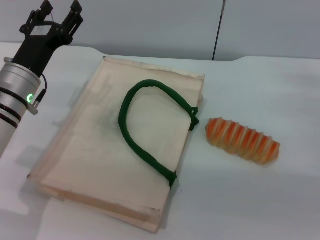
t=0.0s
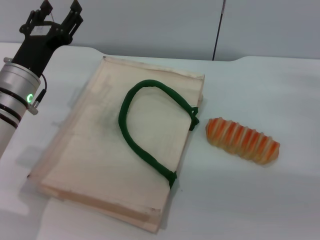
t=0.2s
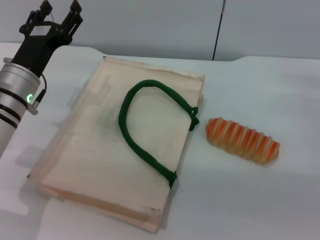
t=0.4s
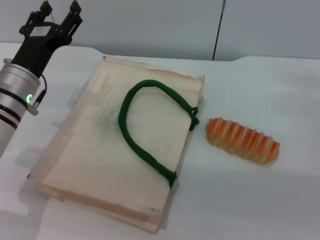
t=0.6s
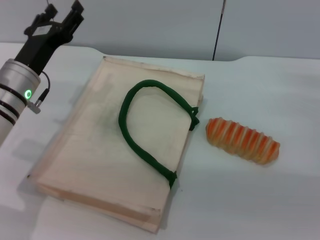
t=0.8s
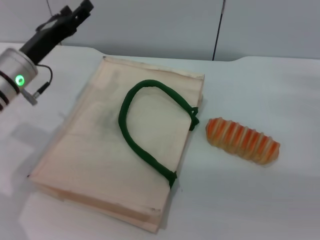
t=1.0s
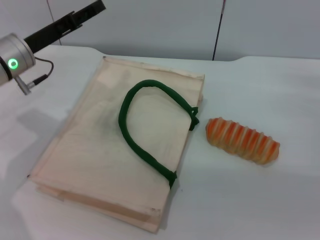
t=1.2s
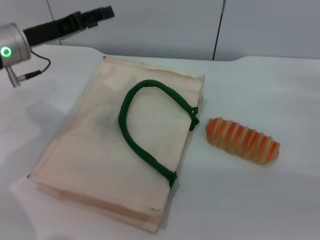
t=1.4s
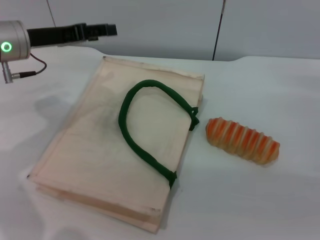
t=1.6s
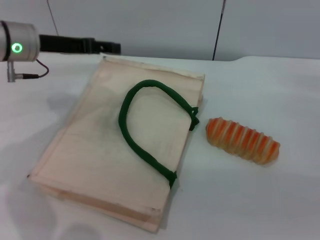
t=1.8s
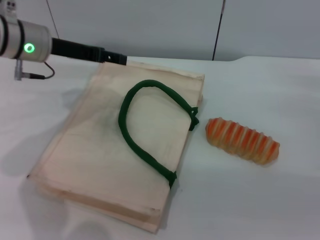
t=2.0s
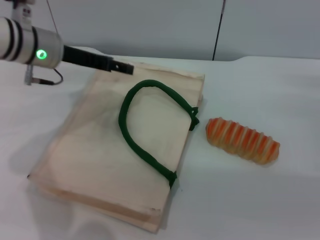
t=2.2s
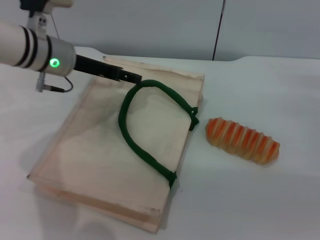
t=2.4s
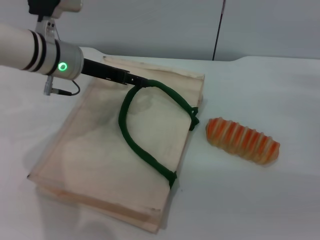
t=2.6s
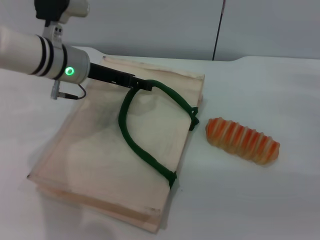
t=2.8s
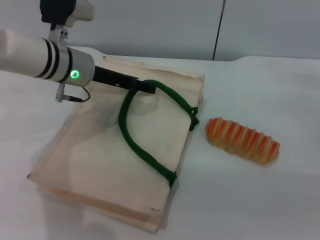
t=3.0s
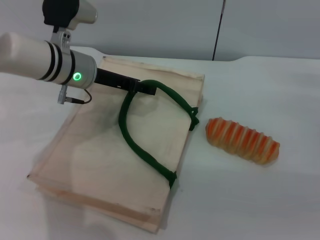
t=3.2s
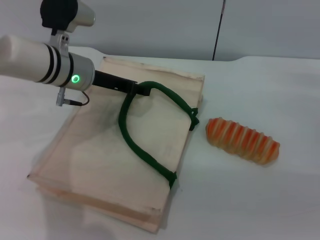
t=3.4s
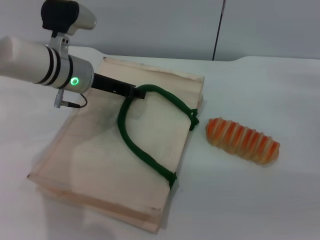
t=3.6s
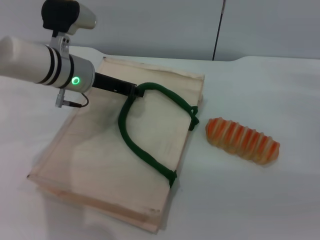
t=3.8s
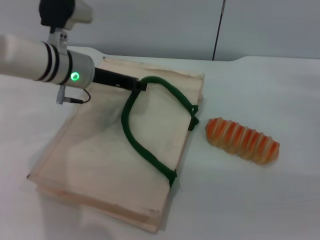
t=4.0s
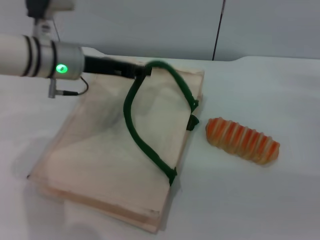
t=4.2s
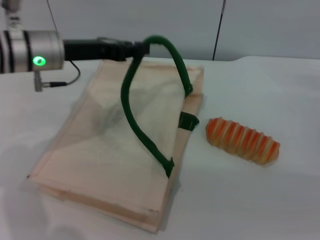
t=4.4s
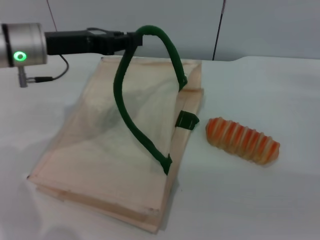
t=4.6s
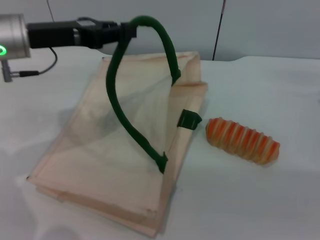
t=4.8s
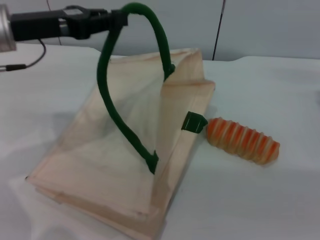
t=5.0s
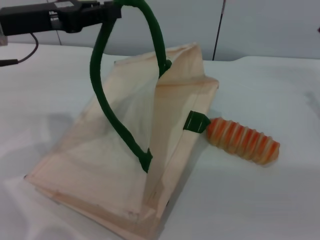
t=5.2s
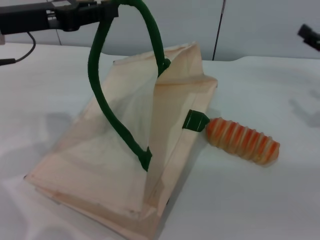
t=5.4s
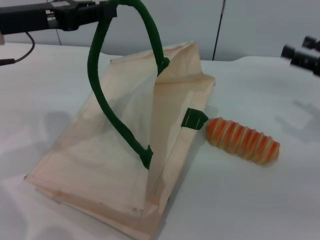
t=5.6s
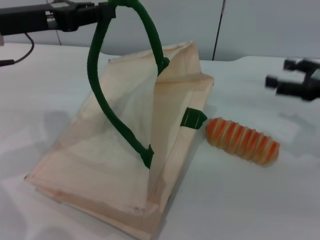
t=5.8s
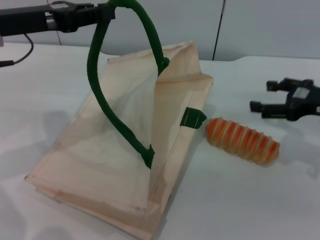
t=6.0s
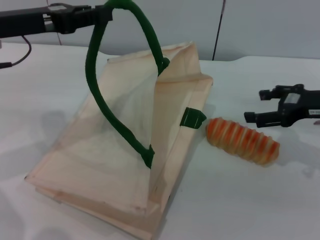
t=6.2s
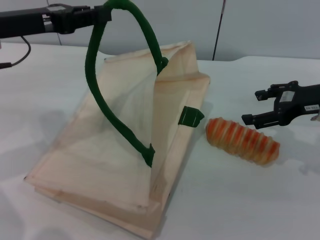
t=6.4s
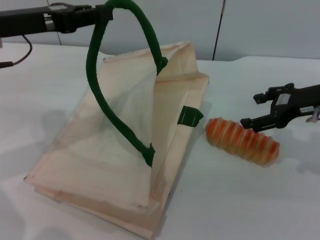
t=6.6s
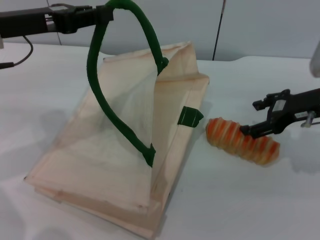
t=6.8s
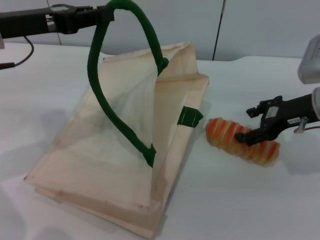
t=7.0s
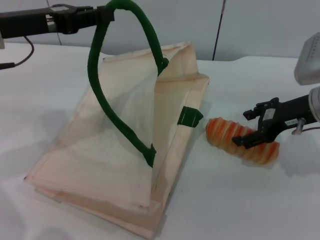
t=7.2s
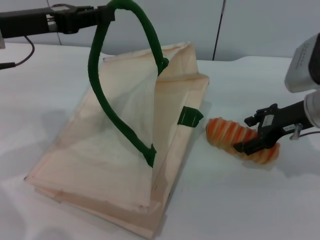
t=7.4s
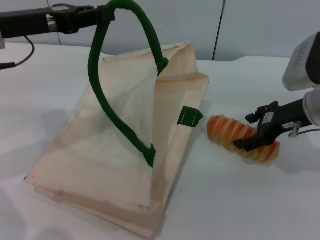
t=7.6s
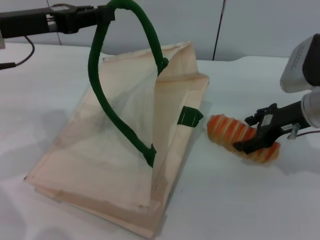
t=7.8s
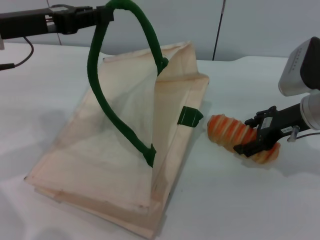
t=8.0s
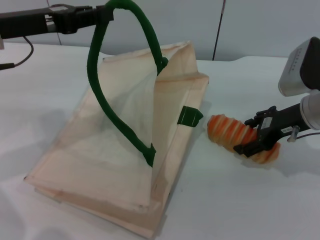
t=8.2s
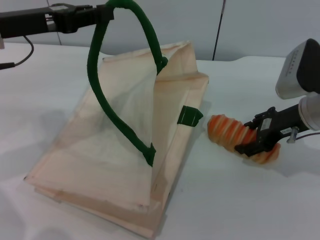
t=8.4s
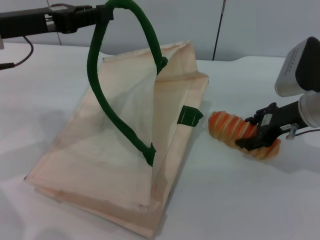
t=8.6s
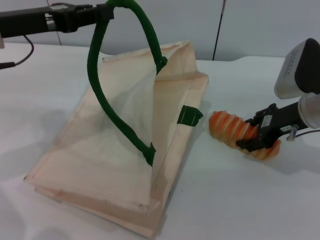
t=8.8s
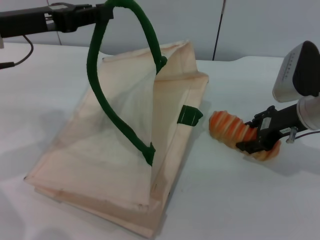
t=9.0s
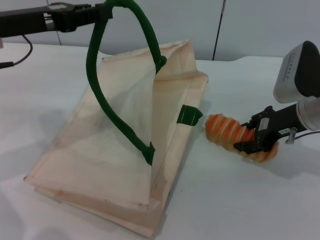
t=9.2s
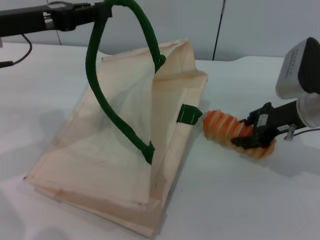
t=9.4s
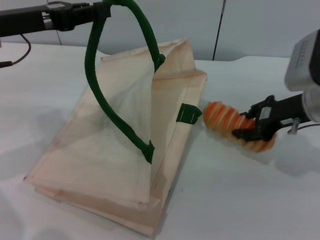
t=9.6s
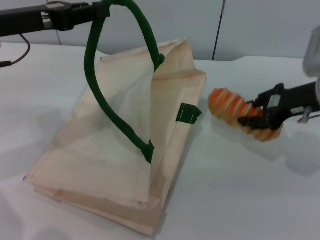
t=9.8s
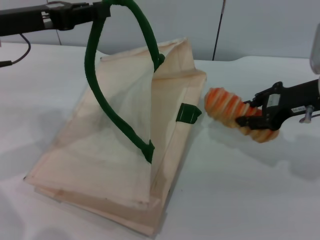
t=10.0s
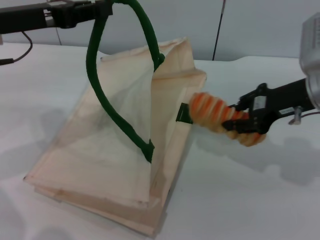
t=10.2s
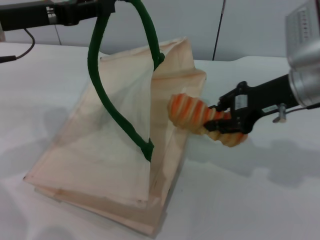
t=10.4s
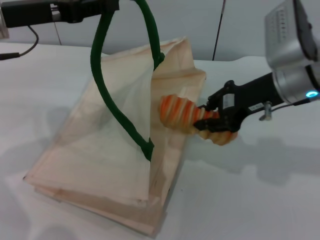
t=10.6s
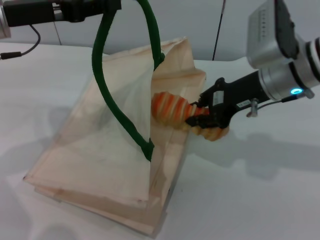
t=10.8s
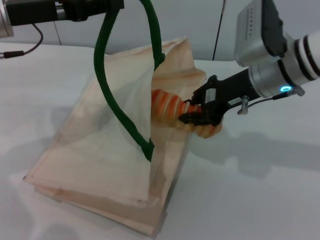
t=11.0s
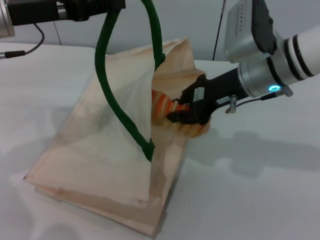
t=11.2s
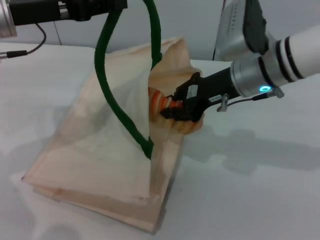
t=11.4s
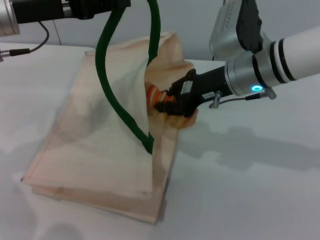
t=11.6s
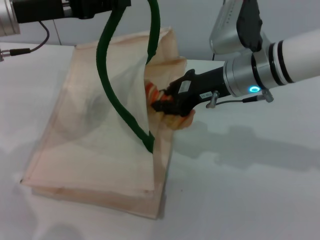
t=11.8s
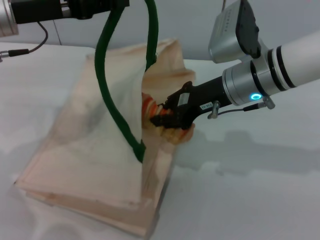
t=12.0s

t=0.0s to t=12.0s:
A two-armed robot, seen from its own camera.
Task of the whole recording: pick up the bread from the table and place it in the white handbag.
Step, t=0.0s to t=5.2s: Lift the woven bag with the left gripper to open it.
Step, t=5.4s to t=9.8s: Pick up the bread with the right gripper.
t=0.0s to t=1.6s: The left gripper travels upward and forward by roughly 10 cm.
t=1.6s to t=3.0s: The left gripper moves to the right, about 10 cm.
t=3.0s to t=4.4s: The left gripper ends up about 5 cm from where it was, and closes up.
t=4.4s to t=6.0s: The left gripper goes approximately 10 cm to the left and upward, while the right gripper goes approximately 5 cm upward.
t=6.0s to t=7.6s: The right gripper heads to the left, covering some 5 cm.
t=7.6s to t=9.0s: The grippers make only small movements.
t=9.0s to t=10.4s: The right gripper heads upward, covering approximately 5 cm, and closes.
t=10.4s to t=12.0s: The right gripper travels to the left by about 10 cm.

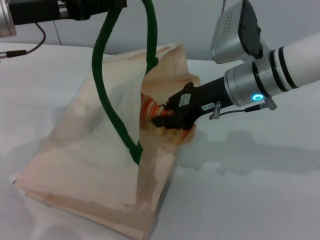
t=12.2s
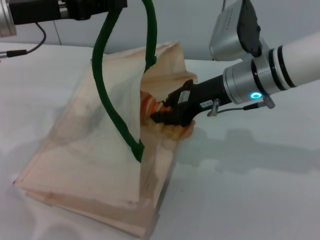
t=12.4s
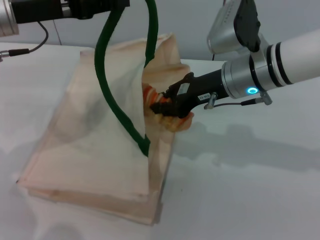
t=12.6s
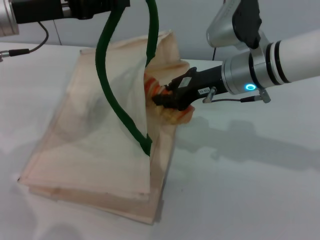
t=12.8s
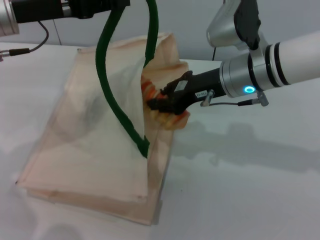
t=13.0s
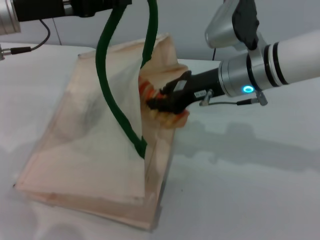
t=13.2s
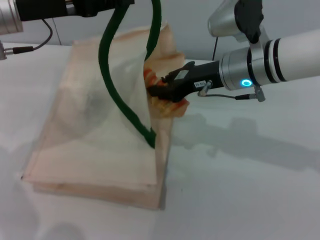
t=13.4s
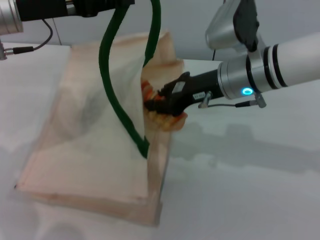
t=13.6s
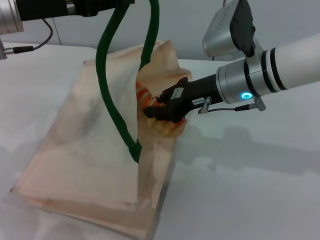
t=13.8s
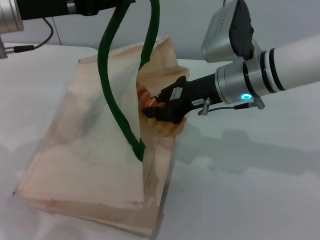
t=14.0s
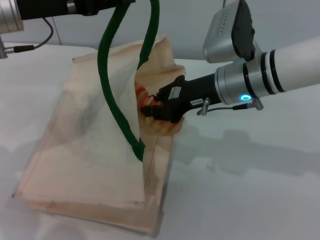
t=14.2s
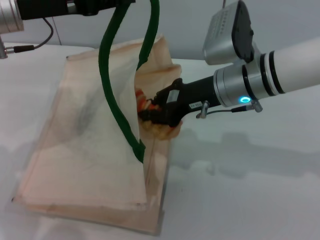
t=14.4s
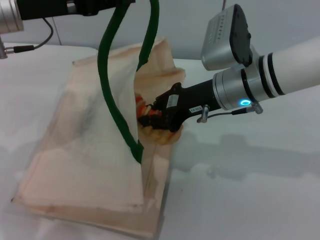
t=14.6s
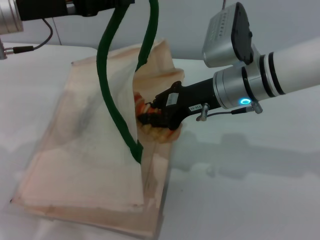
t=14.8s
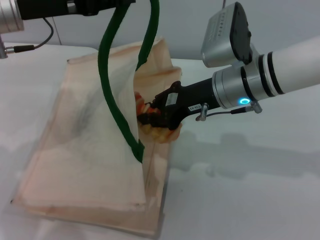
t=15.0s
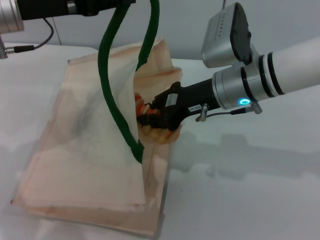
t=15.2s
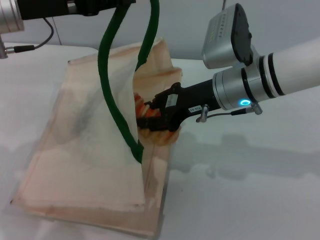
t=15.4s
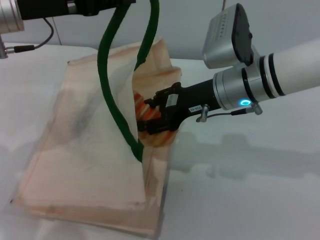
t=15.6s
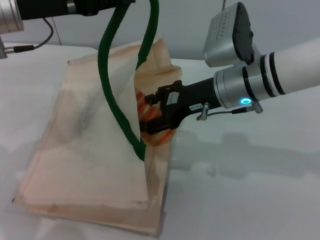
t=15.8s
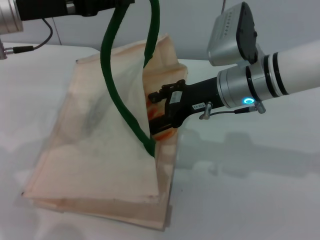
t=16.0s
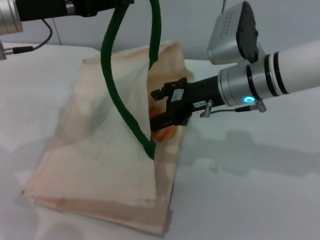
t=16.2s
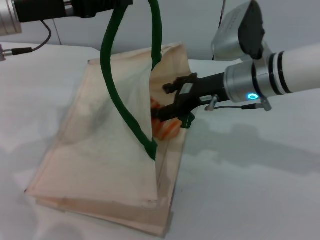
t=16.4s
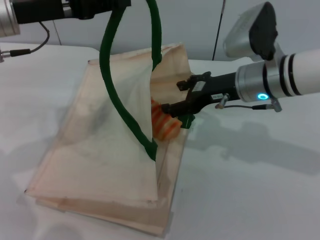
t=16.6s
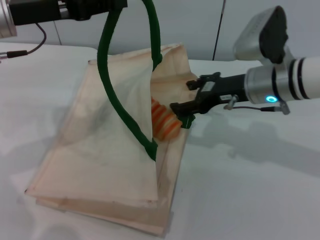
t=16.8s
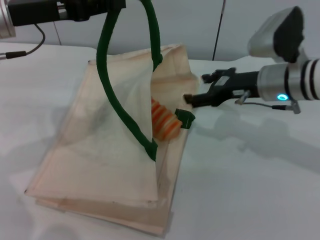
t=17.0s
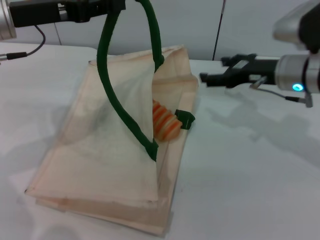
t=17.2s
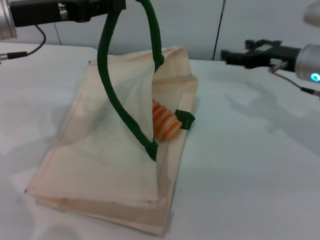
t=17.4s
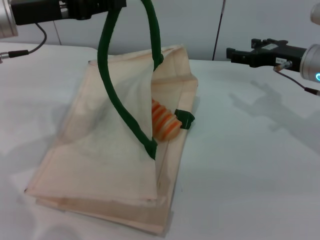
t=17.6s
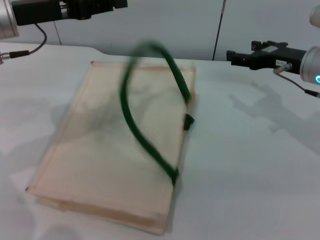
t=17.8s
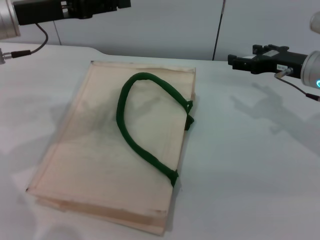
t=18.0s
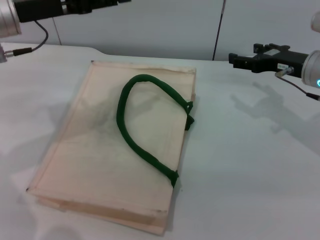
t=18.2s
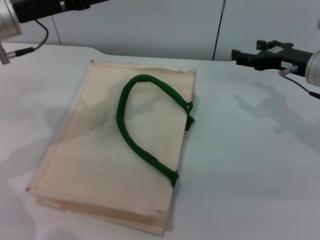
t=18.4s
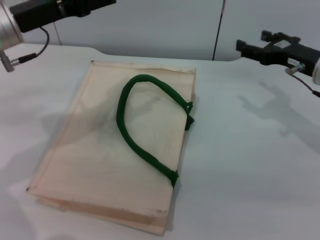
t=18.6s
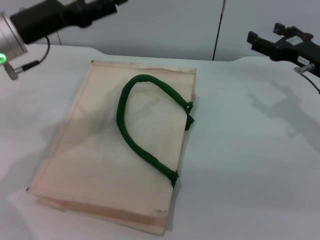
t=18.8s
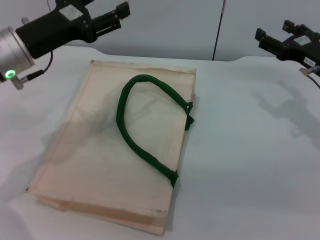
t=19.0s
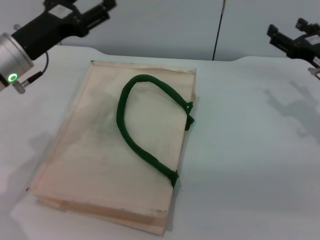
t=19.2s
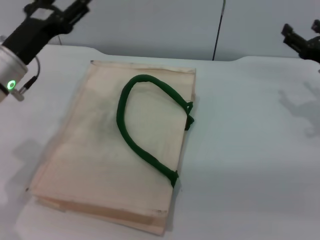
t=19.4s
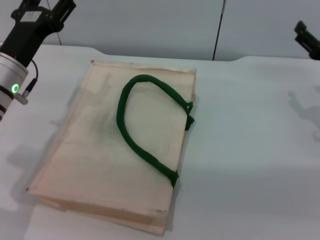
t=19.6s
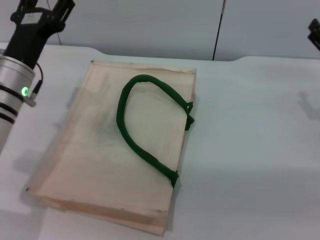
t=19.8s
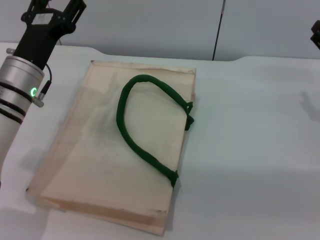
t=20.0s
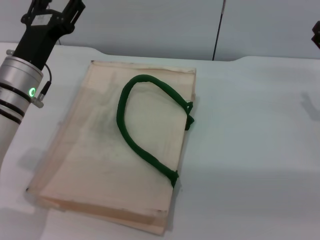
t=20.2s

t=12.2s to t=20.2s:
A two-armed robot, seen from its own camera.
Task of the whole recording: pick up the bread from the table and place it in the white handbag.
Step, t=12.2s to t=16.6s: Place the bread into the woven bag with the right gripper.
Step, t=17.0s to t=18.0s: Lower the woven bag with the left gripper to close it.
t=12.2s to t=15.4s: The grippers stay close to where they were, moving slightly.
t=15.4s to t=17.0s: The right gripper travels to the right by some 5 cm, and opens up.
t=17.0s to t=18.6s: The left gripper opens. The right gripper shifts roughly 10 cm to the right.
t=18.6s to t=20.2s: The right gripper heads to the right and backward, covering about 5 cm, while the left gripper moves downward, approximately 10 cm.
